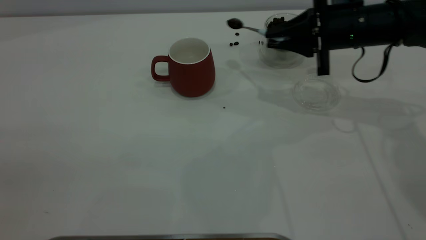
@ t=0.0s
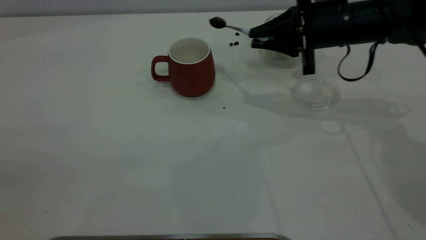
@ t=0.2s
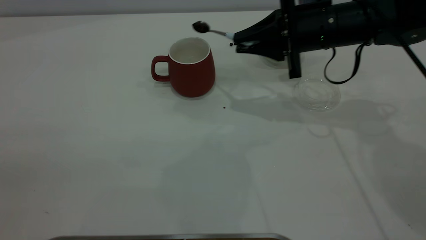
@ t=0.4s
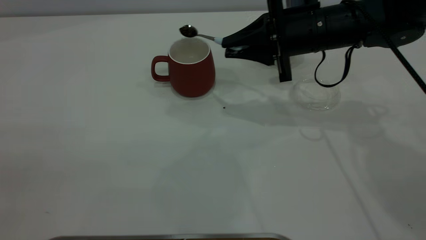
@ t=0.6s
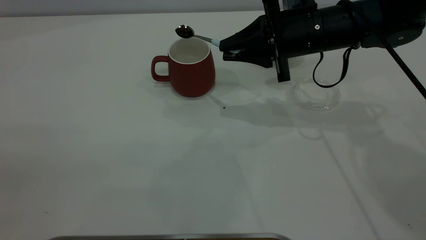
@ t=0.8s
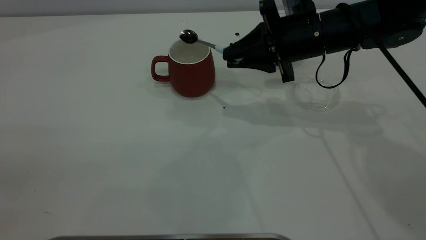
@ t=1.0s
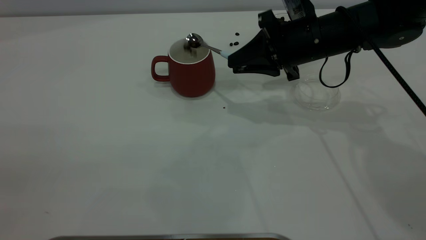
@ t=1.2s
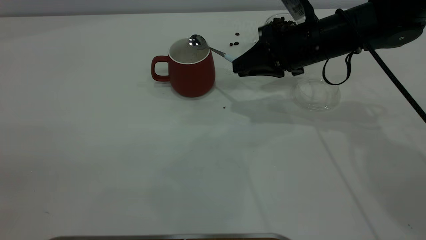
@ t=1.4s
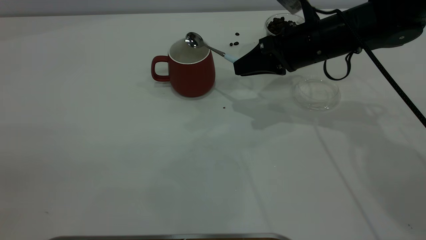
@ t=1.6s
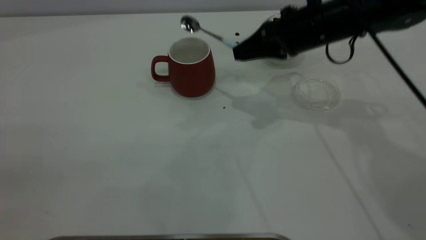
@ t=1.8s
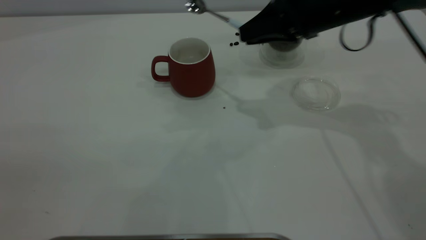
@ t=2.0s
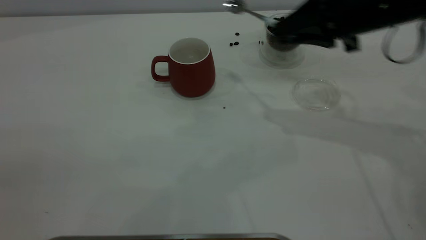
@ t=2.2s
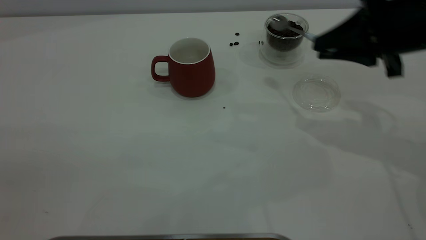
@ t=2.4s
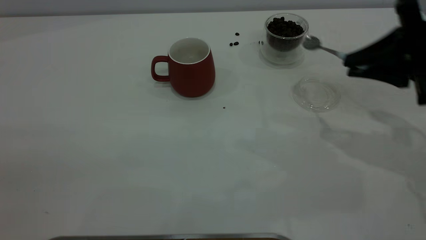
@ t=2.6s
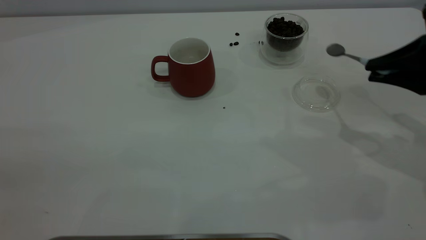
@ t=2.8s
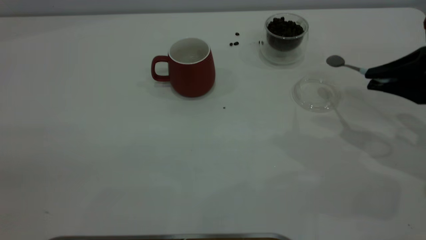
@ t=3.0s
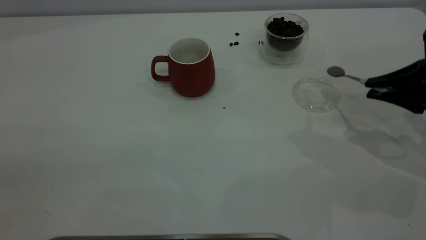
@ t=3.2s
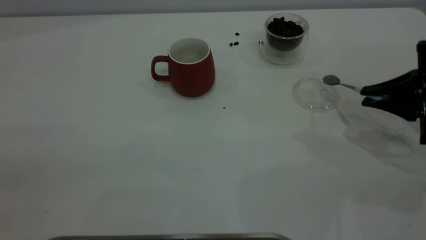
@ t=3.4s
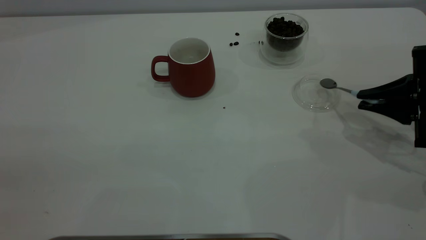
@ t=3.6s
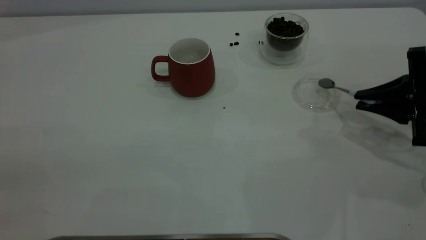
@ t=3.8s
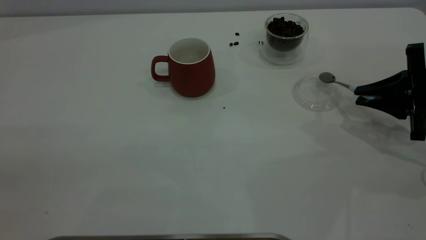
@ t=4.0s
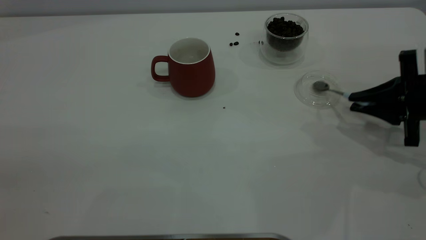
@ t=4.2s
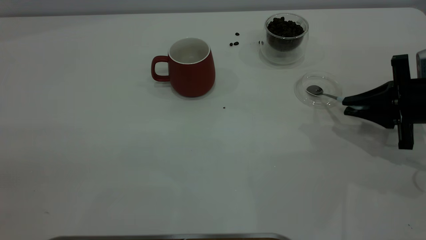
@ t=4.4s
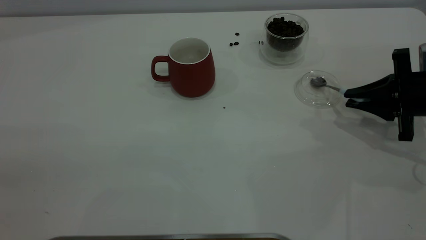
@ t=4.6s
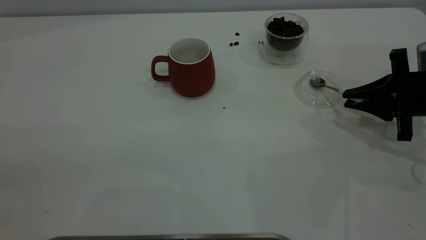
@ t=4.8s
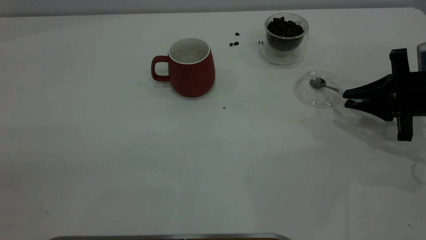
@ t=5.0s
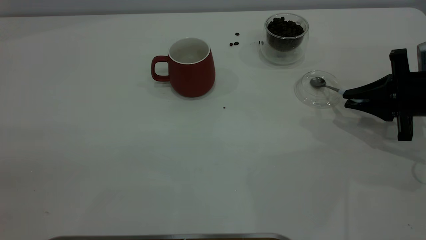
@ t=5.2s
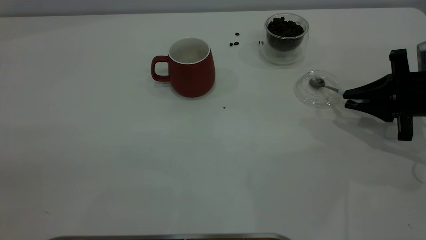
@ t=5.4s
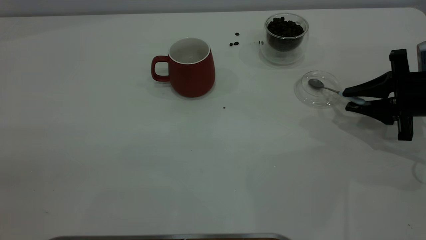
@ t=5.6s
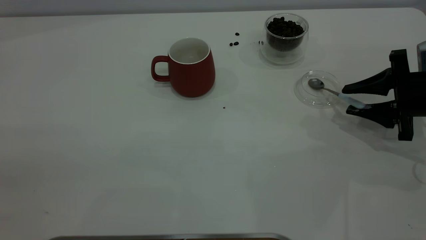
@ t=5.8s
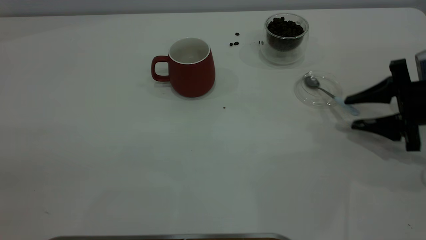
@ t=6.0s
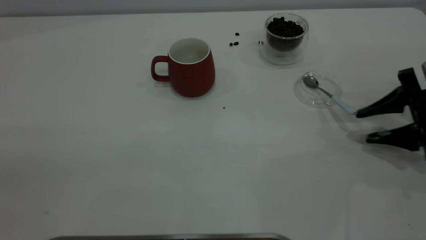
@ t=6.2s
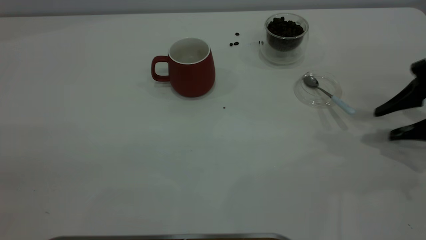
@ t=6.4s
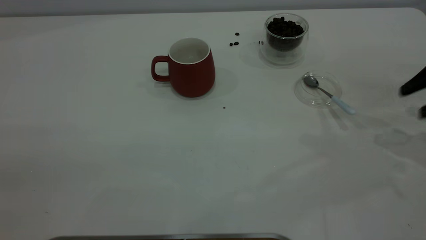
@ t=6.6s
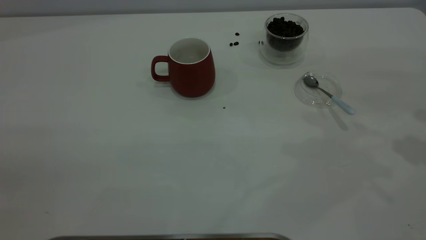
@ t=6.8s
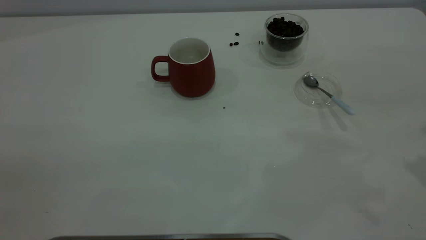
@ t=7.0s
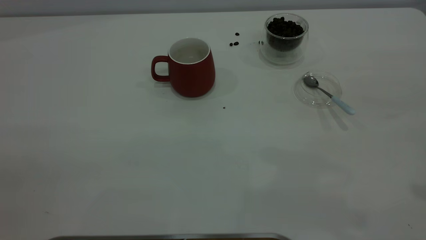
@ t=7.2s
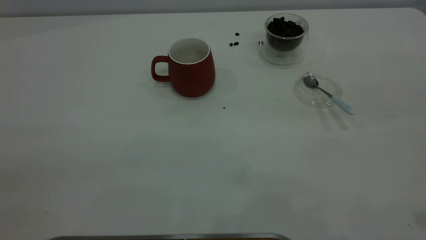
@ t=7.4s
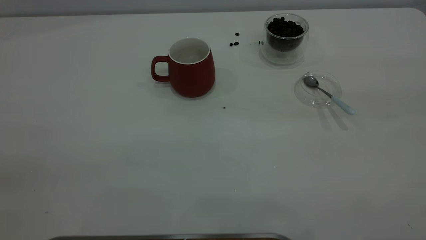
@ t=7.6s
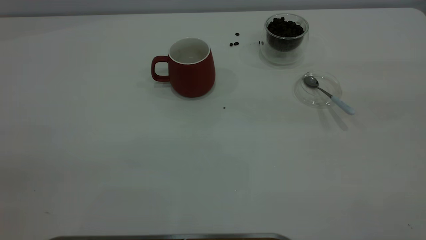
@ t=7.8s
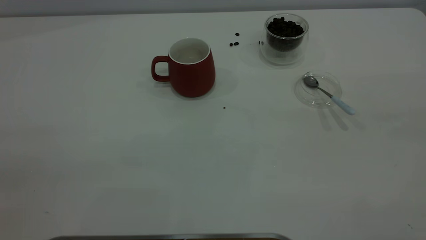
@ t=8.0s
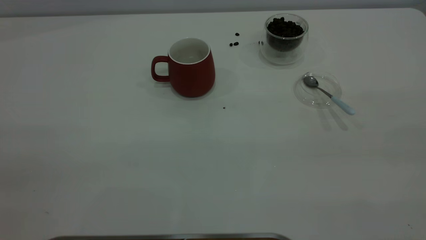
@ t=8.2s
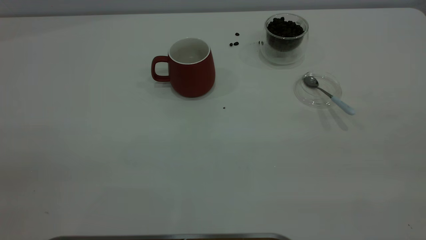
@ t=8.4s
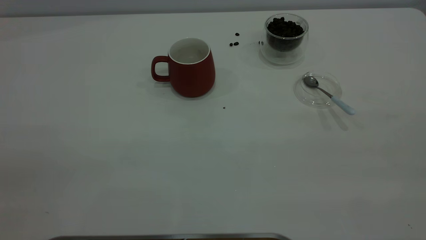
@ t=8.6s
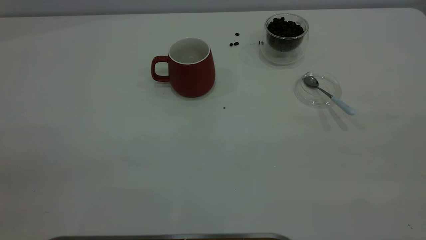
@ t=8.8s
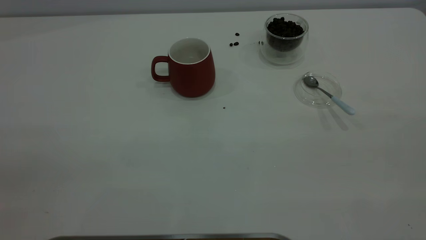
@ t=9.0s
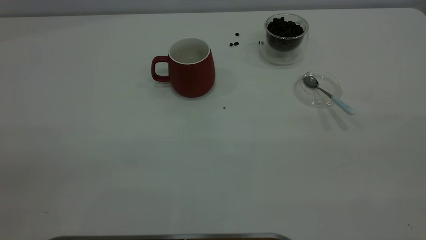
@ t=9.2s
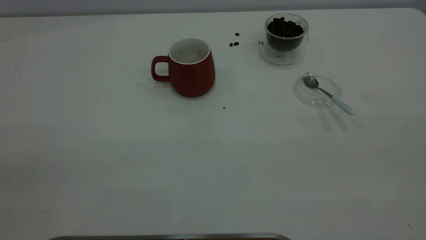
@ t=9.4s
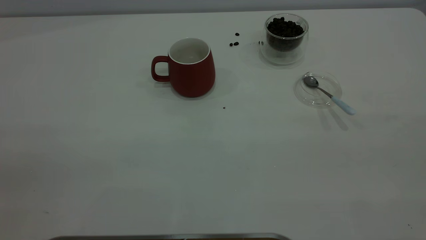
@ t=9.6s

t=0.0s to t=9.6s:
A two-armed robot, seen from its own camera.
Task of the whole recording: the left gripper place the red cup in the center of the table, the right gripper take the blue spoon from the cup lid and scoop out the coffee beans from the coffee cup and put them into the red cup, the right gripper put the spoon back into the cup lid.
Step, t=1.8s to t=6.2s: Place the spoon back in its original place.
t=0.0s to t=1.6s: The right gripper heads to the left, covering approximately 5 cm.
t=1.6s to t=3.2s: The right gripper heads to the right and backward, covering about 20 cm.
t=3.2s to t=4.8s: The right gripper moves roughly 5 cm.
t=4.8s to t=6.4s: The right gripper shifts by about 5 cm, and opens its fingers.
t=6.4s to t=8.0s: The right gripper is displaced upward and backward by about 40 cm.

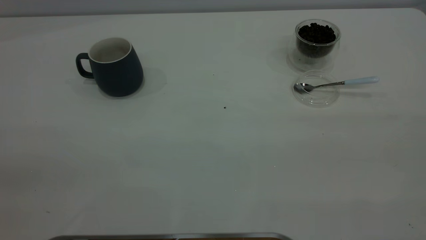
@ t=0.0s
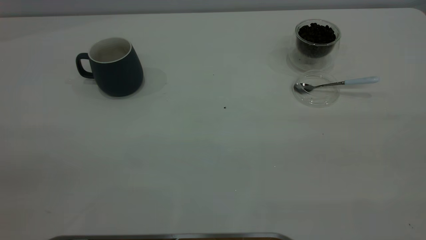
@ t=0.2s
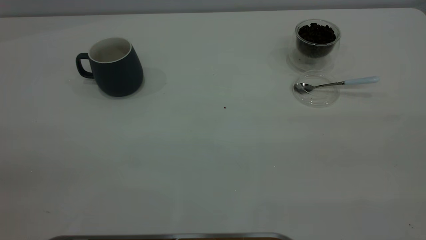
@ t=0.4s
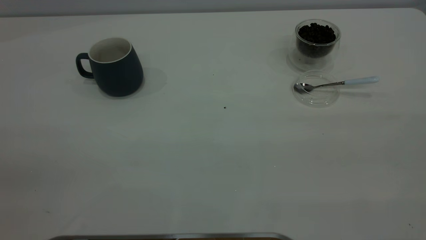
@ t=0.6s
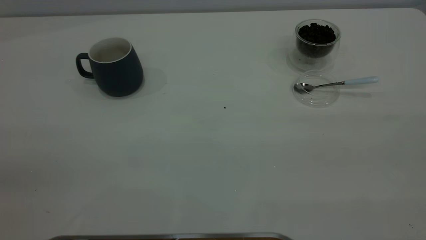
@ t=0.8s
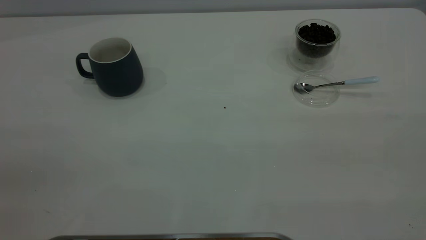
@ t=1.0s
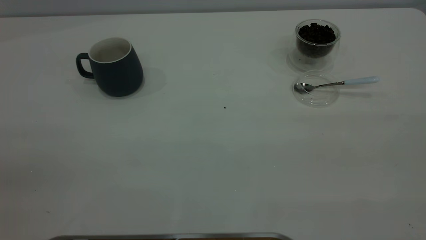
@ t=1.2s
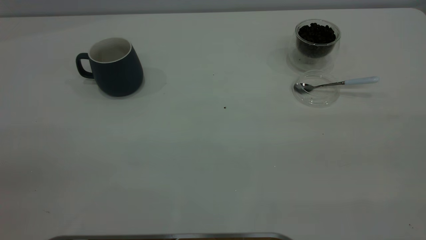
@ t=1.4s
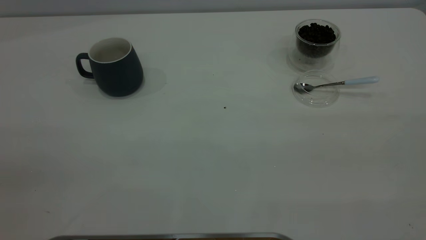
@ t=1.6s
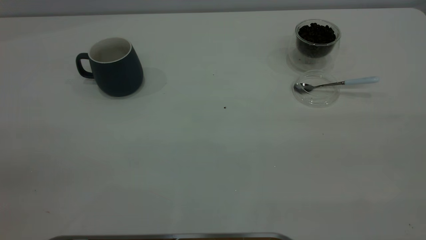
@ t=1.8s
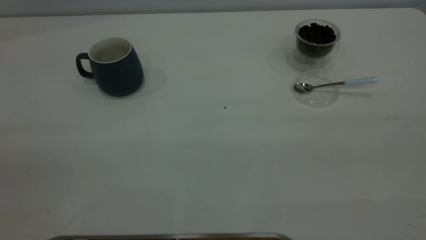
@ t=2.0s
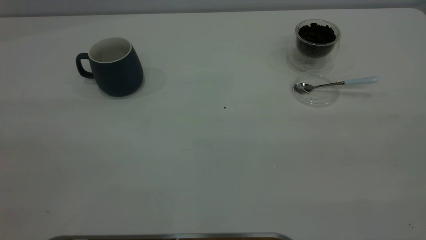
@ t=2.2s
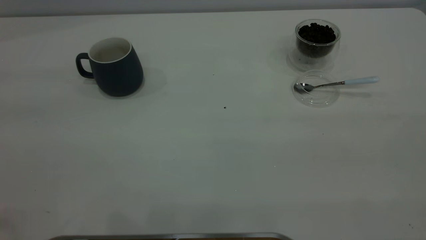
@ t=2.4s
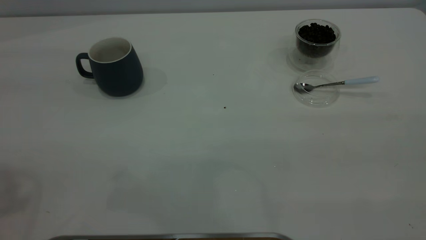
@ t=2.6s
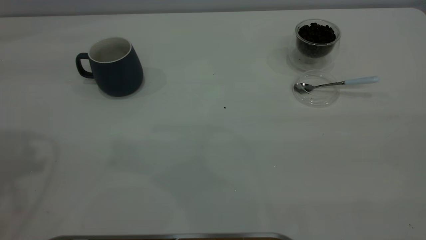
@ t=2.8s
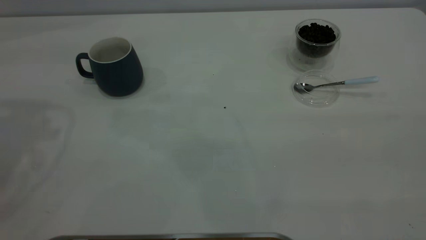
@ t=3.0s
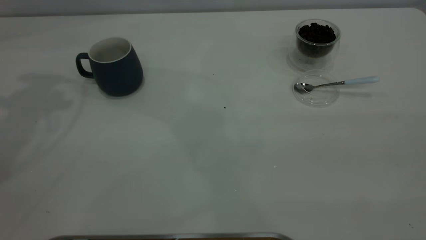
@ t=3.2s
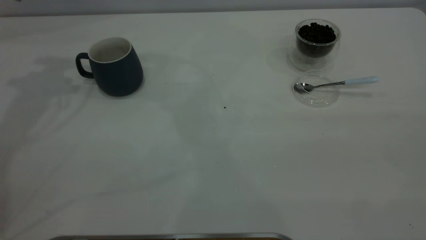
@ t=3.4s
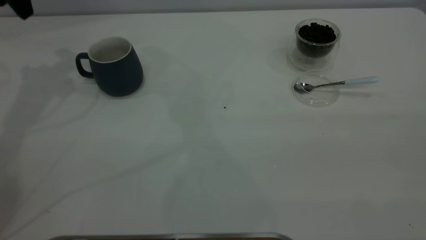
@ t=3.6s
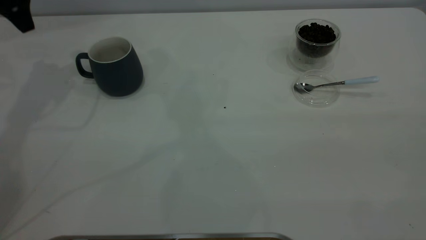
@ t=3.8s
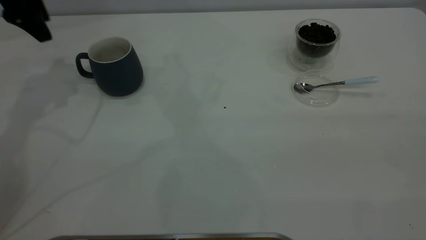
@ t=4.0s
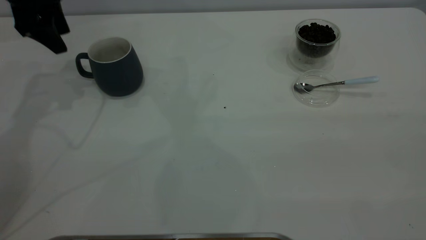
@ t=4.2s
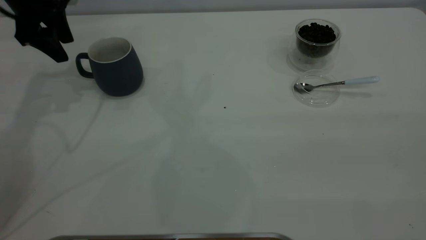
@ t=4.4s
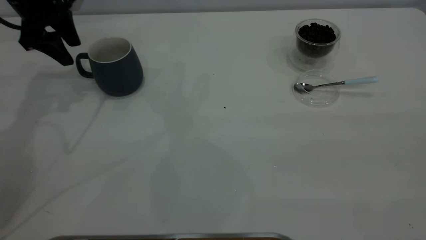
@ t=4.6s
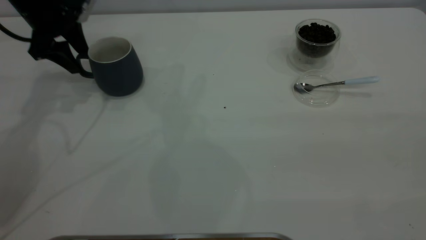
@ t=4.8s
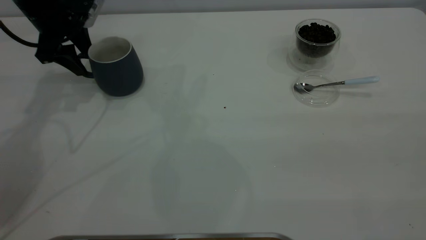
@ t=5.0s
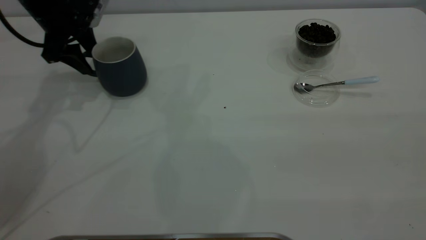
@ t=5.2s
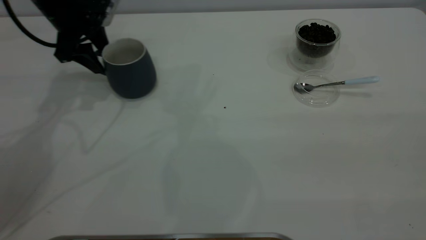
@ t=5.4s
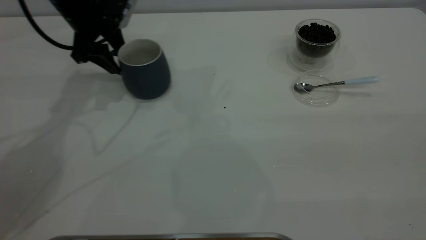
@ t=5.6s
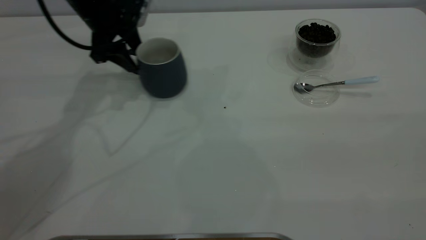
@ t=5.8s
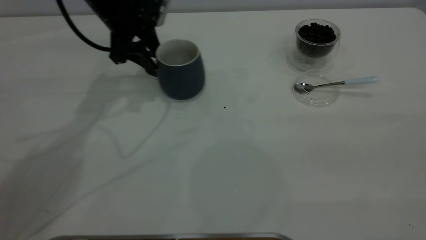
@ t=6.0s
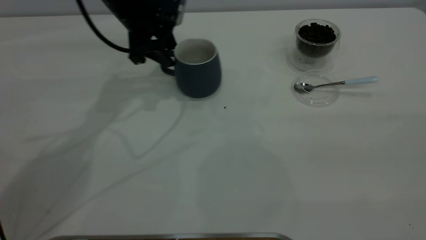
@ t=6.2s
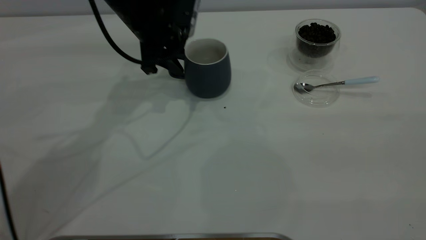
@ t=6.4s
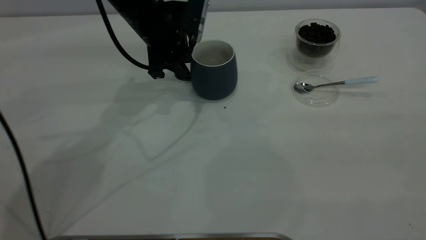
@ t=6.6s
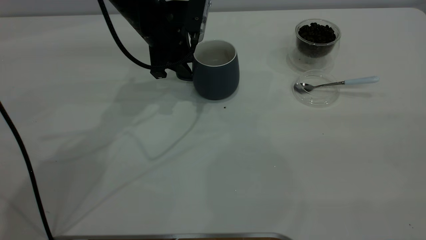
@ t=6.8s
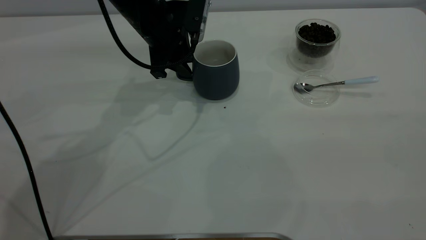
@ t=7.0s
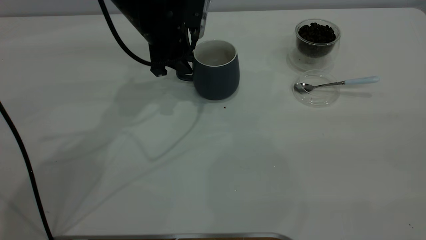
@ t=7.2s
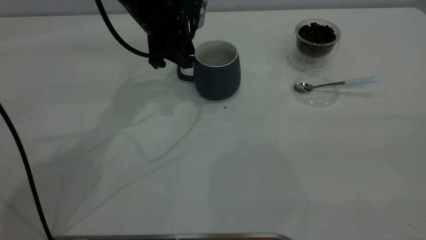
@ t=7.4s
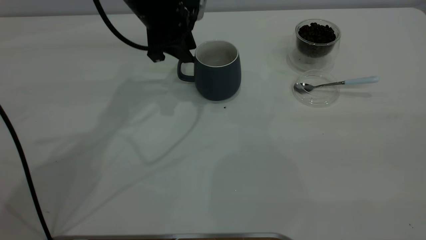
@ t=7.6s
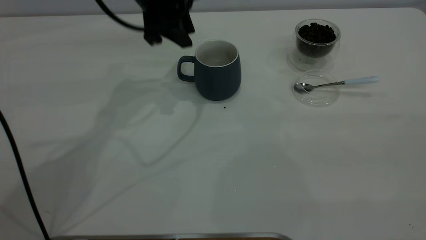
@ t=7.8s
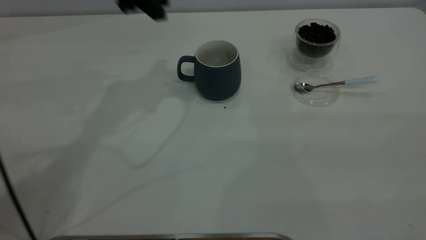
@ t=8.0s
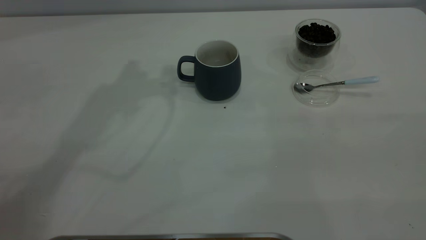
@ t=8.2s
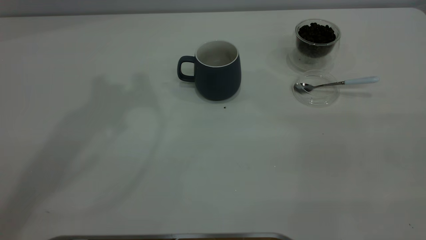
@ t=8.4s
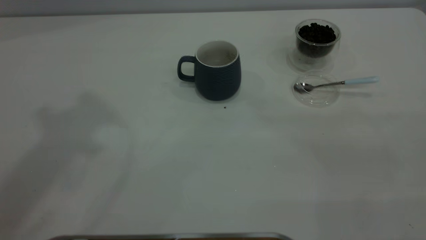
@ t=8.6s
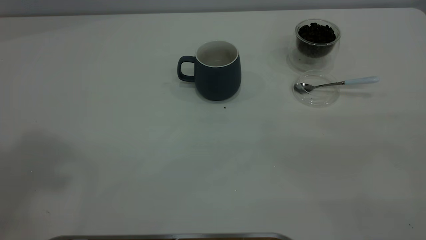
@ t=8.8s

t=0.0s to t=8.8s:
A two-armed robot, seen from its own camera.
Task of the whole recording: the left gripper place the grey cup in the center of the table, the right gripper take the blue spoon from the cup lid and scoop out the coffee beans from the coffee cup and put them into the grey cup, the right gripper put the spoon back into the cup lid.
Step, t=0.0s to t=7.6s: Move the cup to the center of view.
t=0.0s to t=1.4s: Both grippers stay about where they are.
t=3.0s to t=4.4s: The left gripper shifts some 20 cm downward and forward.
t=4.4s to t=5.8s: The left gripper shifts about 10 cm to the right.
t=5.8s to t=7.4s: The left gripper heads to the right, covering some 10 cm, and closes its fingers.
t=7.4s to t=8.8s: The left gripper heads upward and backward, covering roughly 50 cm.
